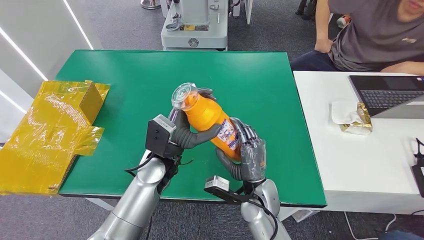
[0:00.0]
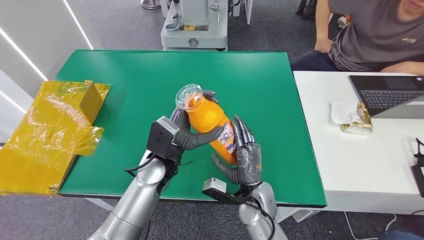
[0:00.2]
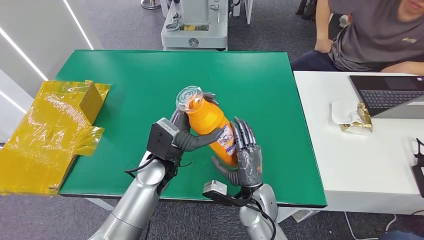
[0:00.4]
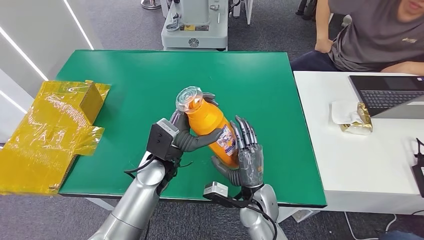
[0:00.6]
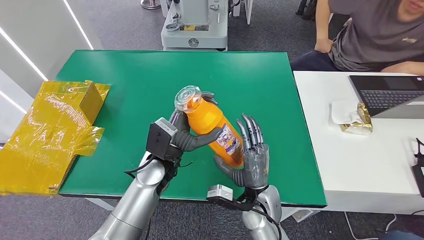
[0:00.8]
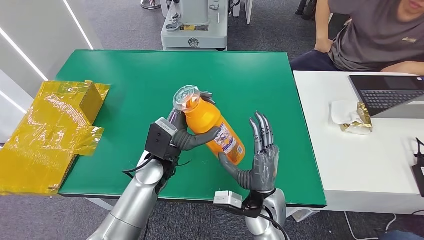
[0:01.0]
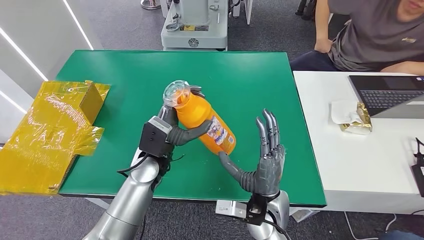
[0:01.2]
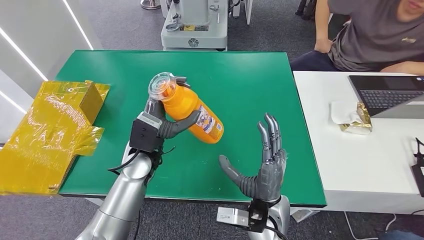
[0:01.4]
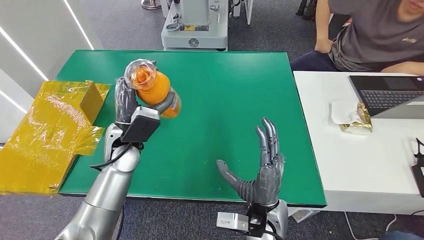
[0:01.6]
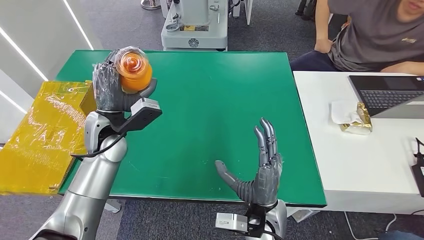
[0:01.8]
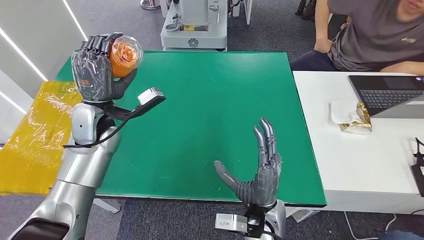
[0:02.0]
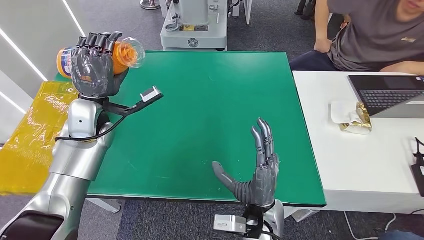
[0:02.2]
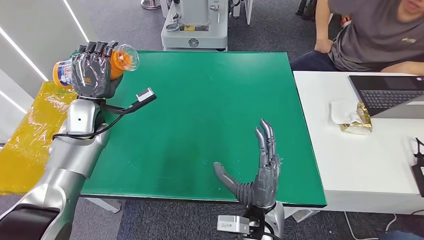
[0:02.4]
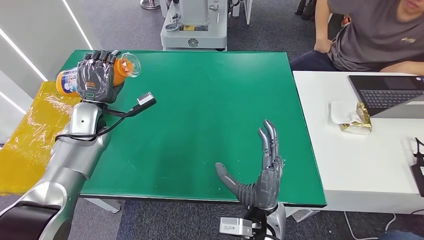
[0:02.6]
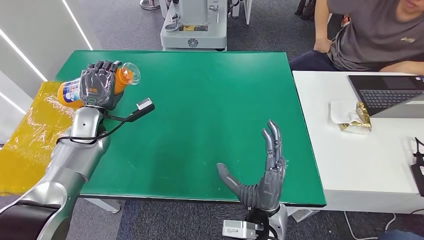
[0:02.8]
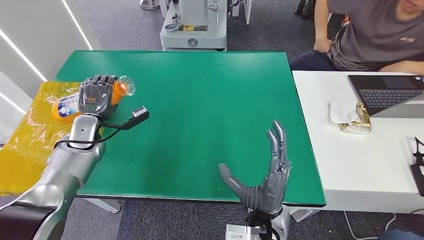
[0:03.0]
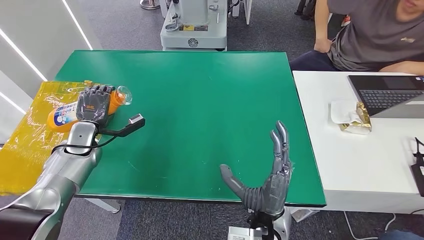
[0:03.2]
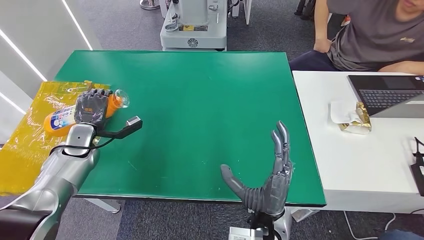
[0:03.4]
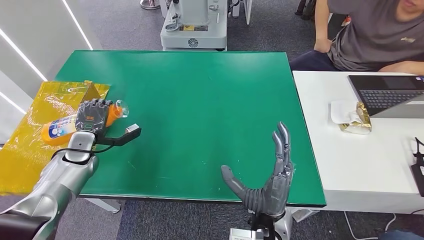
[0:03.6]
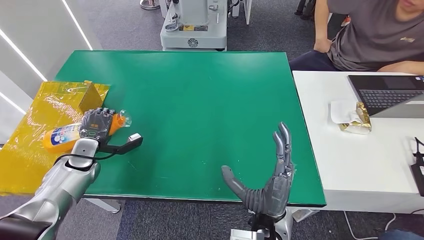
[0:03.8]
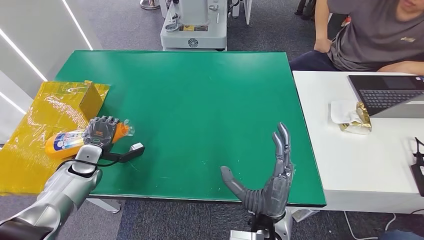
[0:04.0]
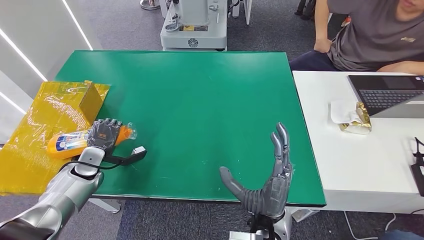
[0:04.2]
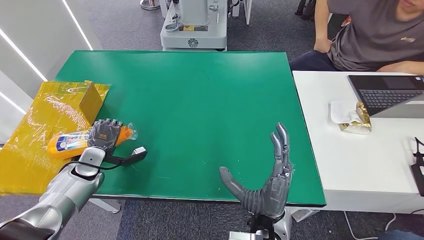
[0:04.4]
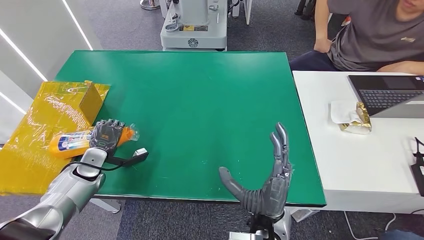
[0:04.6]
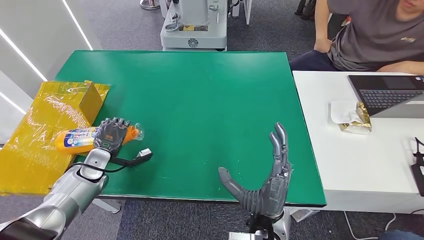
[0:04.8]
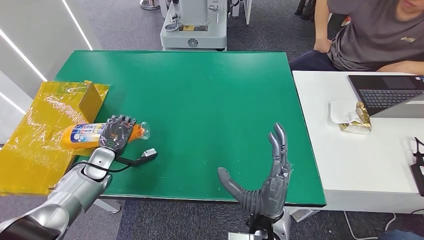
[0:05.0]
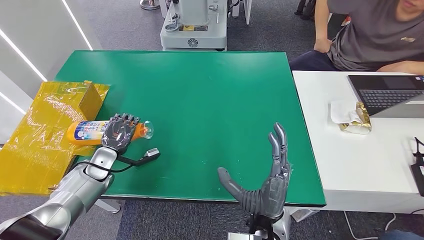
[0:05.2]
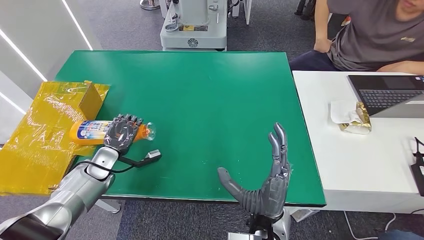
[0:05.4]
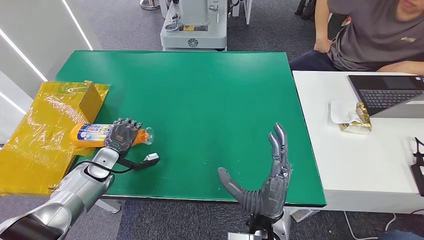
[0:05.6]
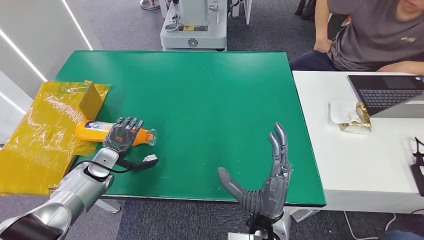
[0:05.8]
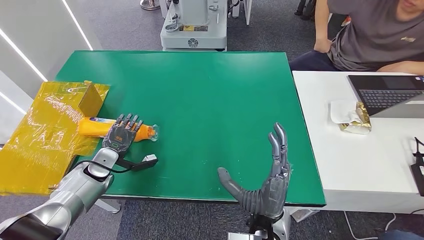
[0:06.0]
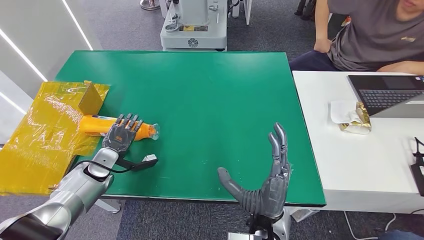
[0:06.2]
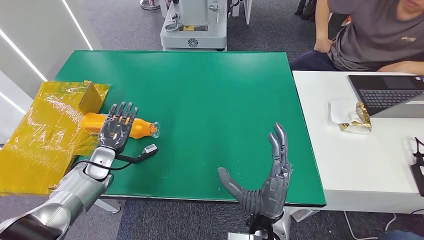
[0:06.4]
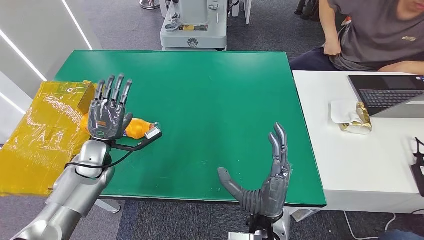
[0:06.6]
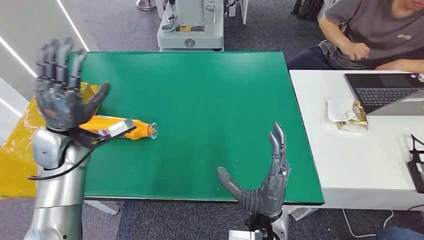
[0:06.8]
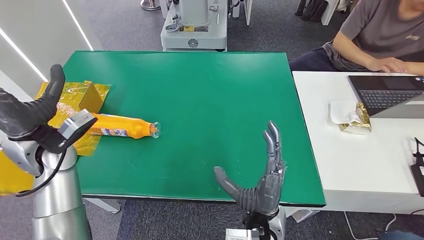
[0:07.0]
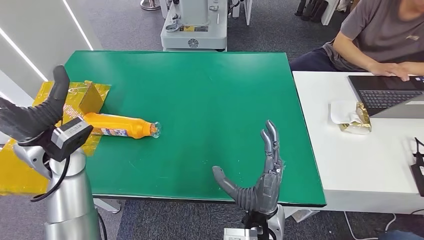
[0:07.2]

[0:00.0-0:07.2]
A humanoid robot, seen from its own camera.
Step, 0:00.0 to 0:07.2: Turn the bottle to the front side.
0:00.0 to 0:01.4: The right hand is displaced backward by about 5 cm.
0:01.4 to 0:02.8: The left hand heads to the left and forward, covering about 20 cm.
0:02.8 to 0:04.4: The left hand heads downward, backward and to the left, covering about 15 cm.
0:04.4 to 0:05.8: The hands move only a little.
0:05.8 to 0:07.2: The left hand moves upward, about 20 cm.
